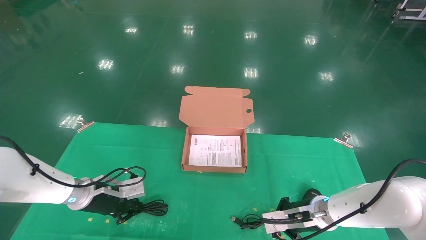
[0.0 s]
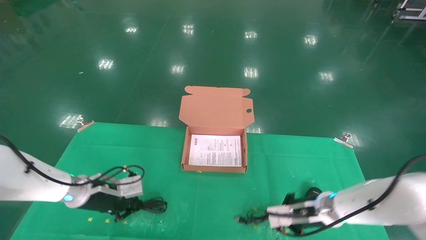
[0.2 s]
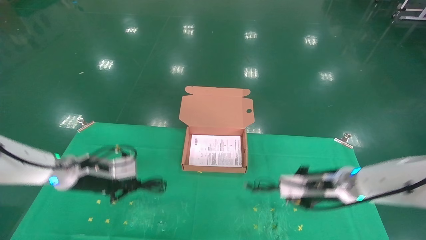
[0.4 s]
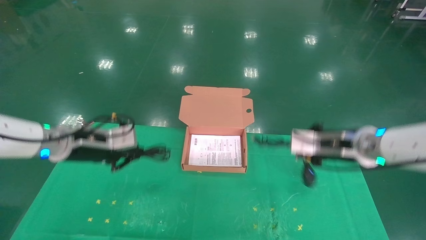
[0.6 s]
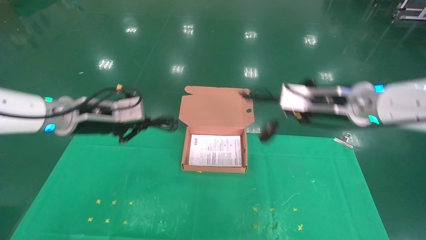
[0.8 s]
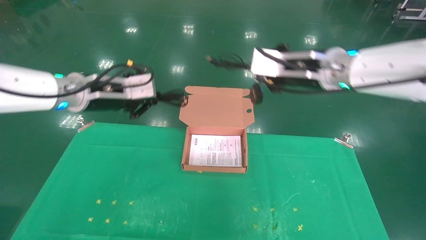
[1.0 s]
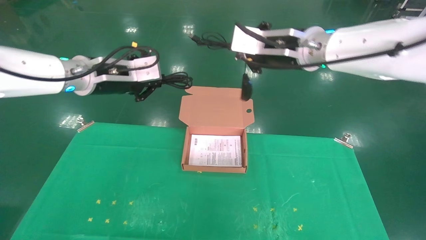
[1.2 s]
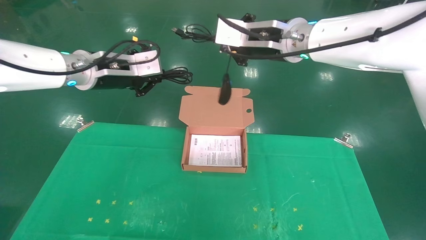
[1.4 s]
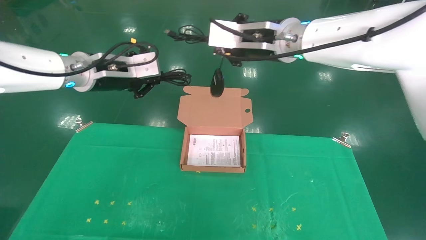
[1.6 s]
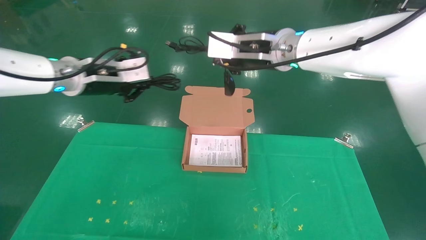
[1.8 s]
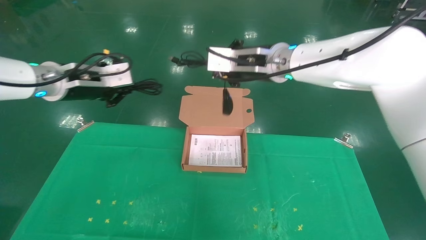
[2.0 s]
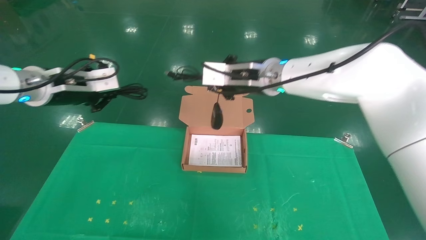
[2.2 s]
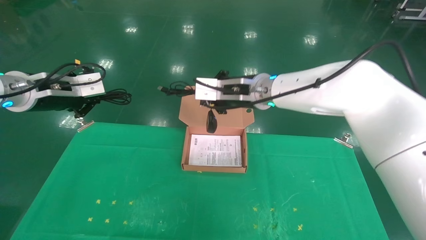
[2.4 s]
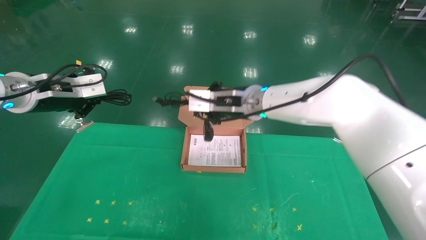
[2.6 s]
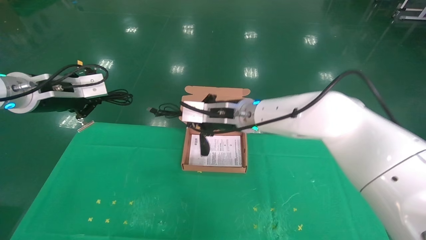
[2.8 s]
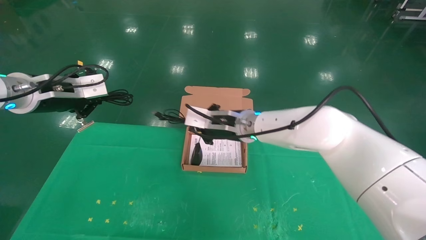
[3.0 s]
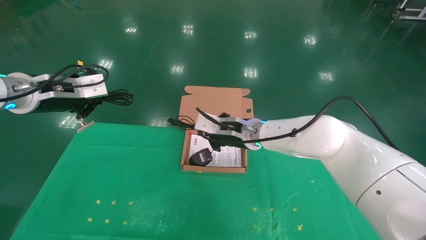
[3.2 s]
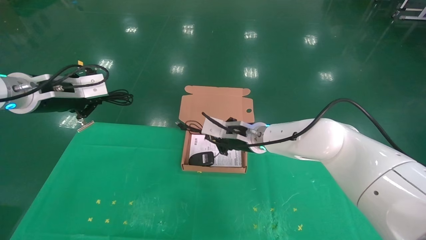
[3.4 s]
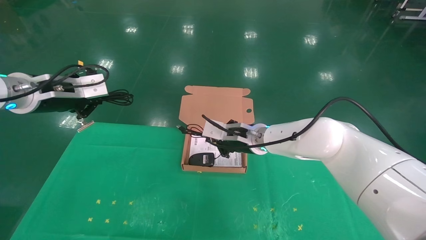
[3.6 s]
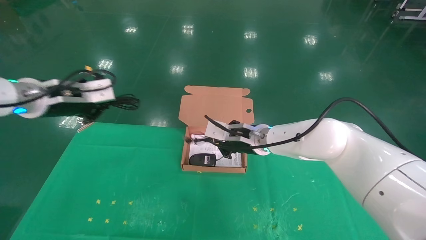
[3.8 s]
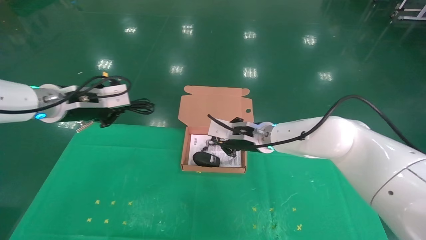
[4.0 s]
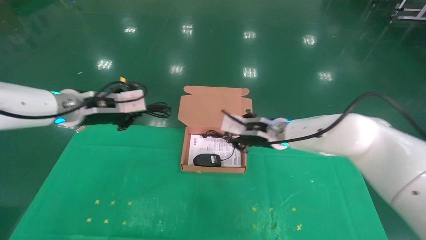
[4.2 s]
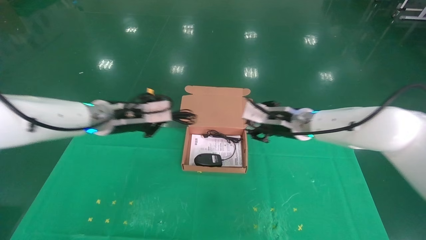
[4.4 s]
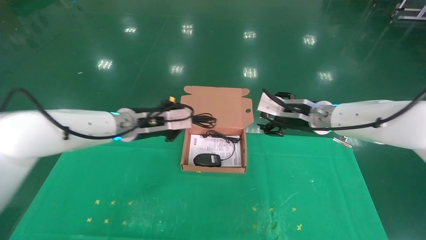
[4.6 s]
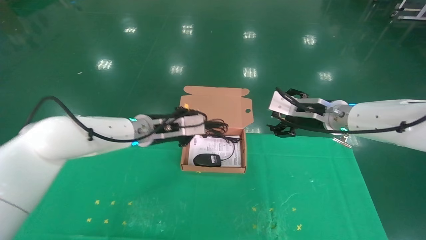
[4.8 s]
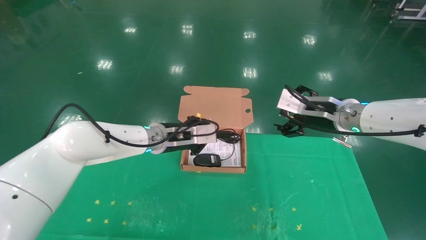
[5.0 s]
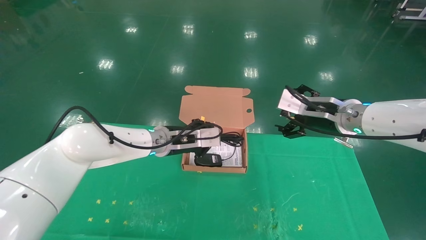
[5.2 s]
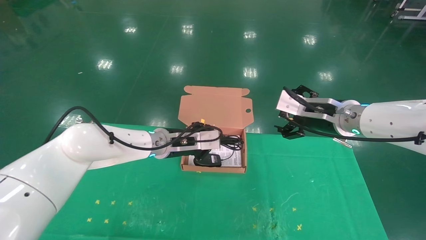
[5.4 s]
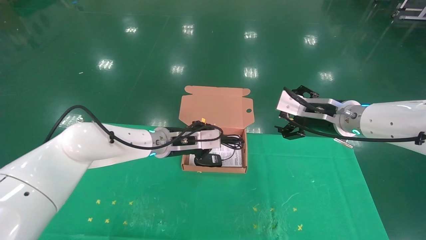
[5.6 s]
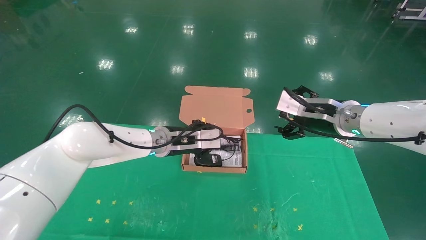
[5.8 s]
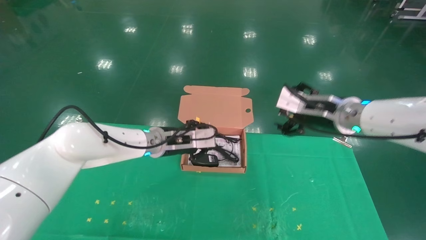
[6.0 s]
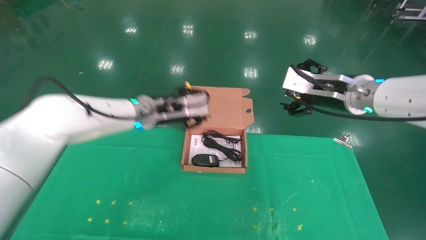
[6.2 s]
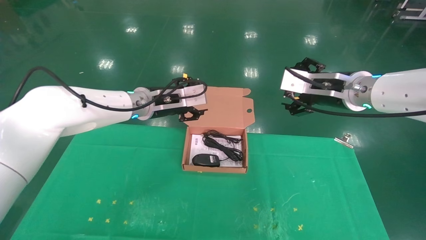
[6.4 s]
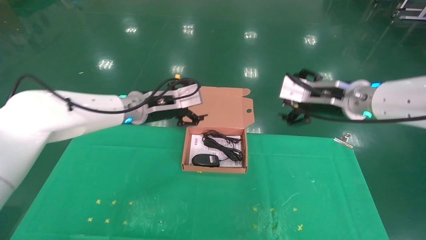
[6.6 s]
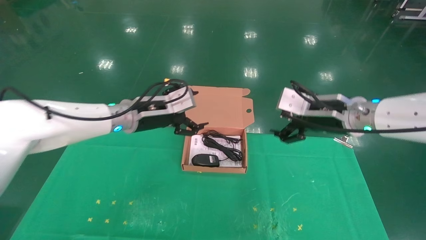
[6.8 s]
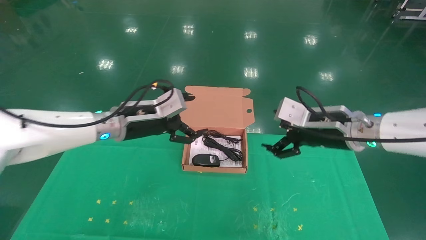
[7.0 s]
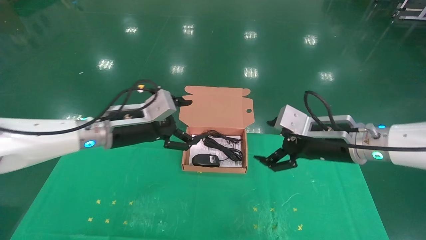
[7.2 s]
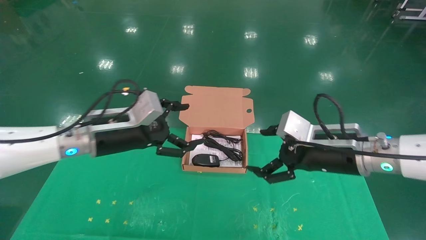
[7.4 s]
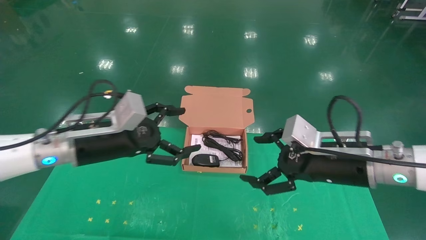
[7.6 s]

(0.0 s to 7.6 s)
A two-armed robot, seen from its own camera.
Task of the whole recording: grasp data cable left put into box grasp mouse right put into box.
Step, 0.8 s - 6.4 s: Place the mouse and power cord into the box.
0.0 s - 1.6 s: The grippers both shift upward by some 30 cm.
1.6 s - 3.0 s: The left gripper heads to the left, covering approximately 10 cm. The right gripper heads downward, covering approximately 15 cm.
3.0 s - 4.6 s: The left gripper moves to the right and downward, some 20 cm. The right gripper goes approximately 15 cm to the right, and opens.
4.6 s - 6.0 s: The left gripper travels to the right by some 5 cm. The right gripper changes place by roughly 5 cm, and opens.
6.0 s - 7.6 s: The left gripper is displaced backward and to the left by about 15 cm, and opens; the right gripper goes roughly 10 cm backward and downward.
